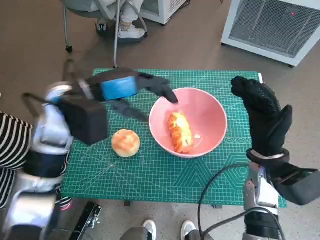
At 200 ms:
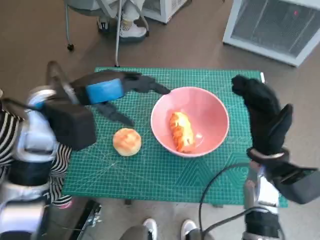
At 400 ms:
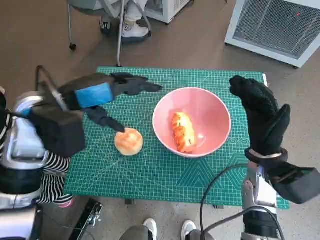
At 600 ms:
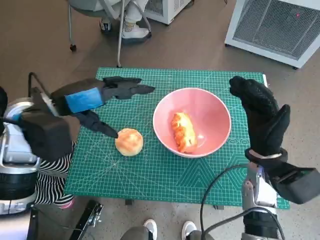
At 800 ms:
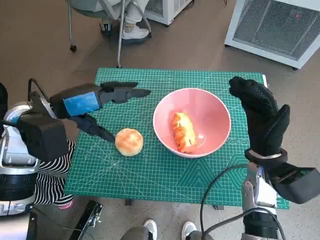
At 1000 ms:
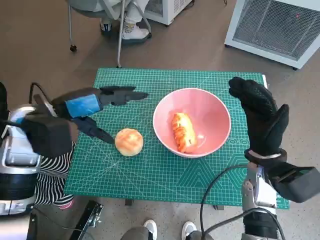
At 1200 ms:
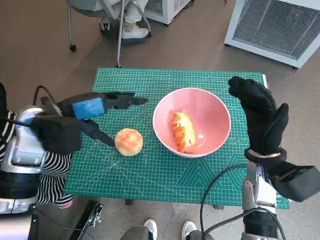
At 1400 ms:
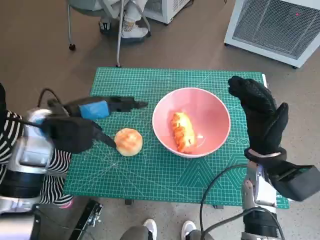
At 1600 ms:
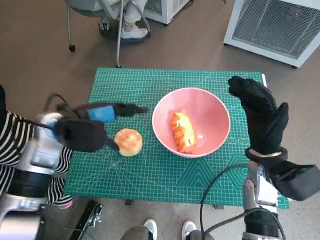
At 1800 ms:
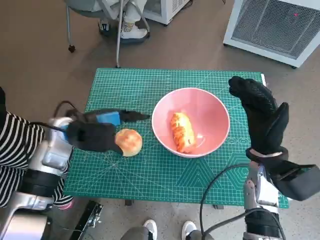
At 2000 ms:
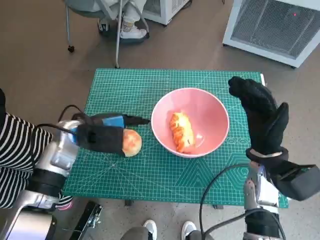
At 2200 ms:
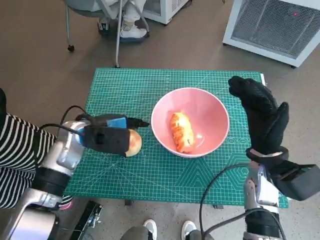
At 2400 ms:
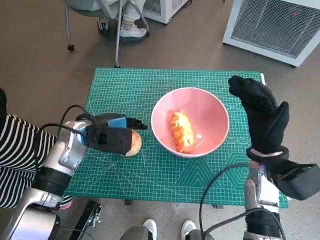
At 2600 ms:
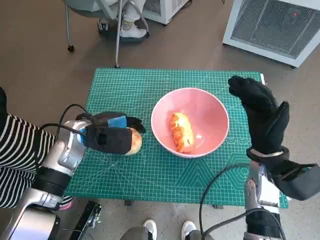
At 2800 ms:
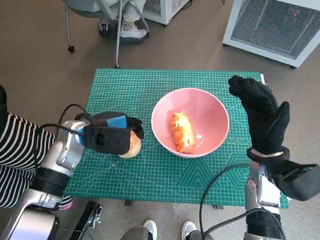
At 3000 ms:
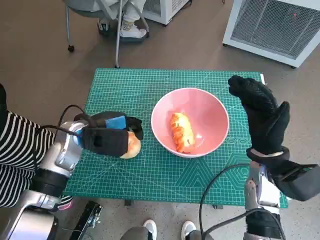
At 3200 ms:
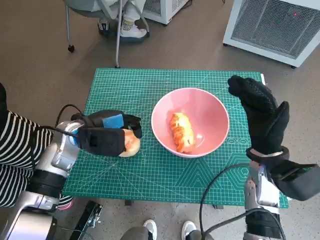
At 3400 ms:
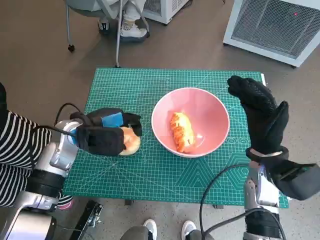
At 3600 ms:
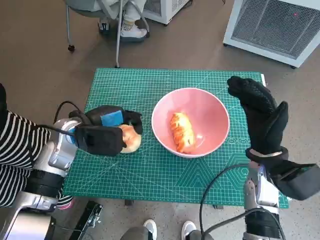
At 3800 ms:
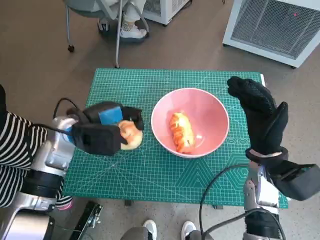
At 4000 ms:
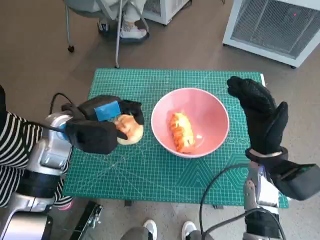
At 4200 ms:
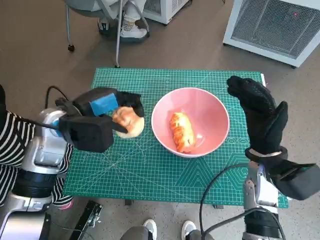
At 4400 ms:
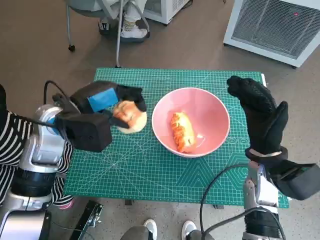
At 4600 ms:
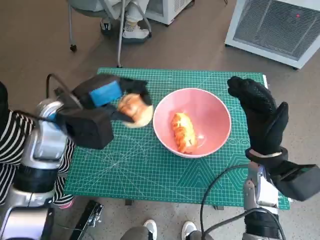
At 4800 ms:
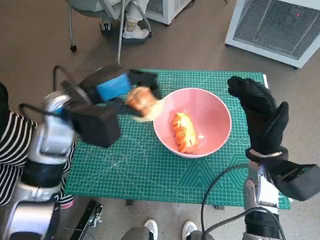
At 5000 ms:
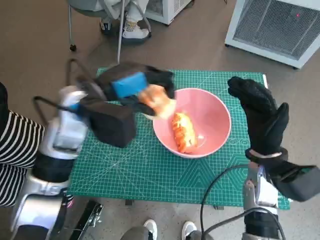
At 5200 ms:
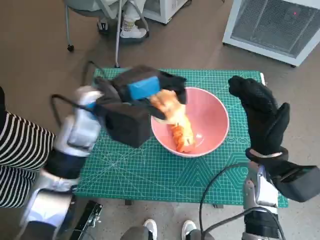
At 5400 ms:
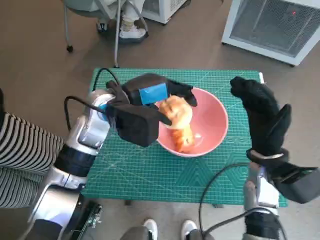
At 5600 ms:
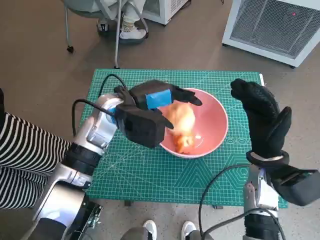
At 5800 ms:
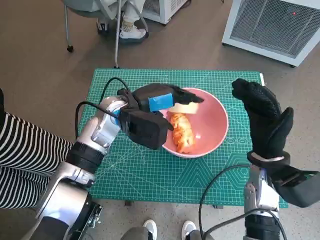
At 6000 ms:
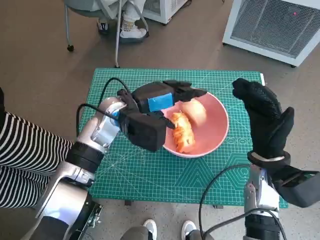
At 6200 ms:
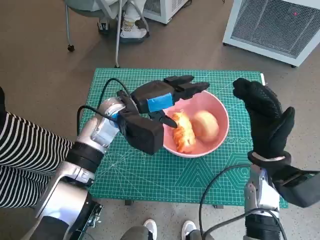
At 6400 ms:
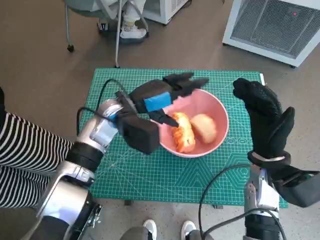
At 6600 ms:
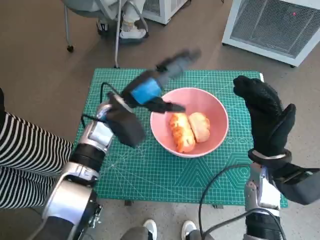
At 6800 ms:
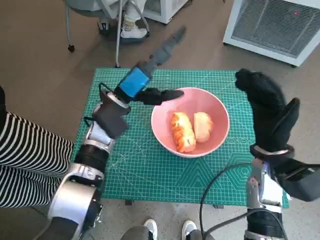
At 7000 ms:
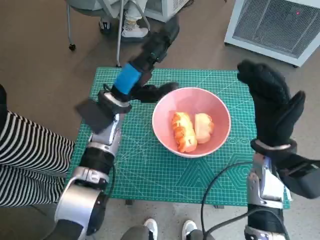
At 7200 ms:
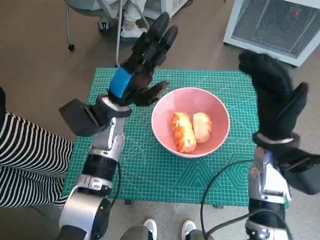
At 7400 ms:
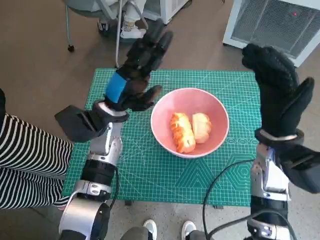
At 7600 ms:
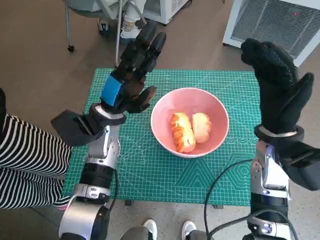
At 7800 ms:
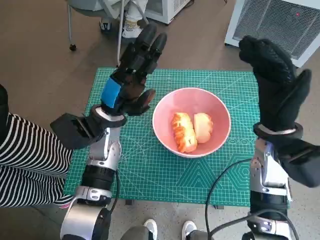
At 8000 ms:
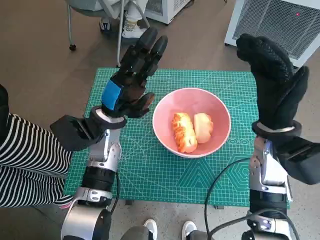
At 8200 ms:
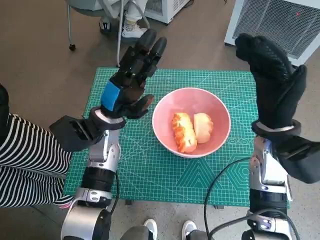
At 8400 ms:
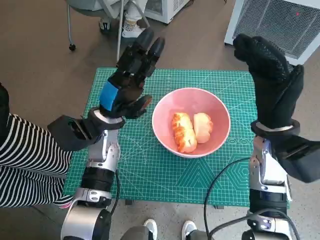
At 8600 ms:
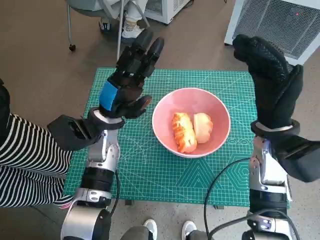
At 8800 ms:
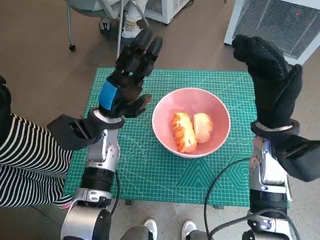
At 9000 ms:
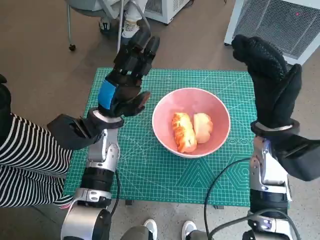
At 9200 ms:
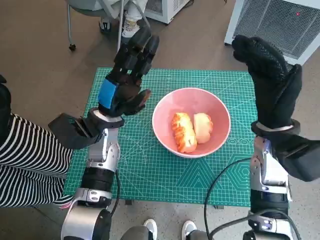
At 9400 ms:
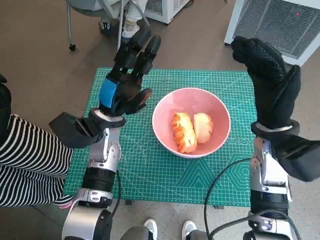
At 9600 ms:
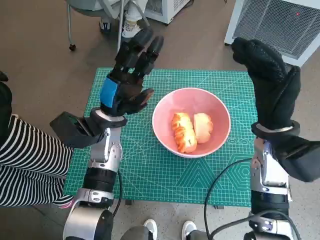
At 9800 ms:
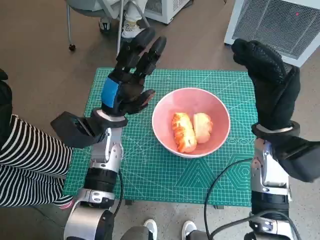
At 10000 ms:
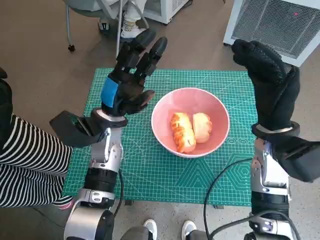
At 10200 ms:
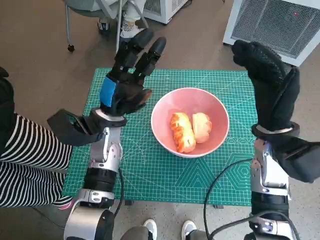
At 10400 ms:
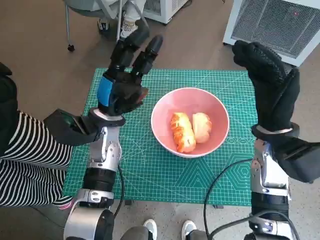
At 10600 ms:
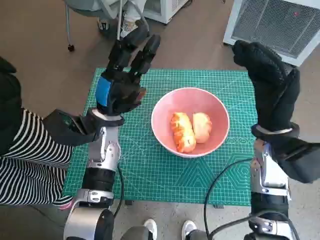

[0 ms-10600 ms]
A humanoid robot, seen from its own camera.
Task of the whole recording: Push the bowl into the center of the table and put the bread into the bowl.
Step, 0 ms to 2600 ms: Grasp the round bread with left hand.
Step, 2800 ms to 6400 ms: Place the round bread in pink bowl with left hand.
0 ms to 1600 ms: The left hand travels downward and to the left by about 10 cm.
1600 ms to 3000 ms: The left hand changes place by some 5 cm.
3000 ms to 4600 ms: The left hand travels upward by approximately 10 cm.
4600 ms to 6000 ms: The left hand shifts about 10 cm to the right.
6000 ms to 7600 ms: The right hand goes some 5 cm upward.
7600 ms to 9000 ms: The two hands keep their place.
9000 ms to 10600 ms: There are only small adjustments of the hands.

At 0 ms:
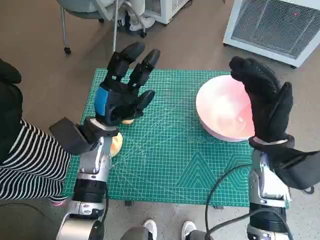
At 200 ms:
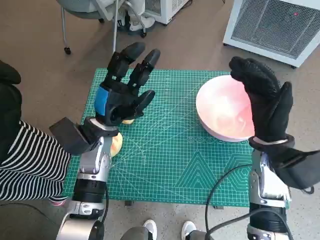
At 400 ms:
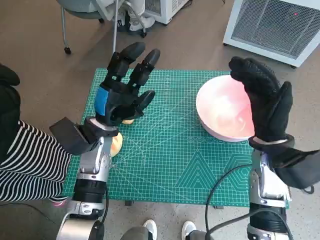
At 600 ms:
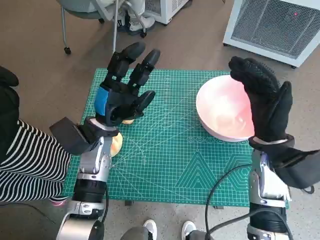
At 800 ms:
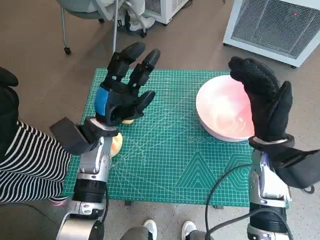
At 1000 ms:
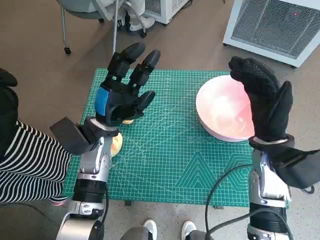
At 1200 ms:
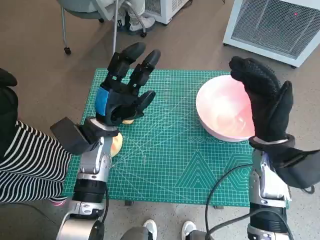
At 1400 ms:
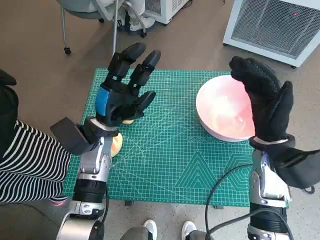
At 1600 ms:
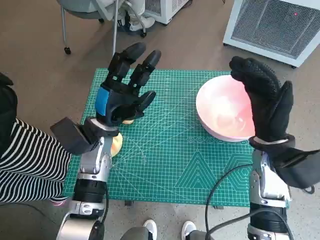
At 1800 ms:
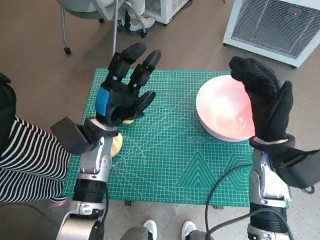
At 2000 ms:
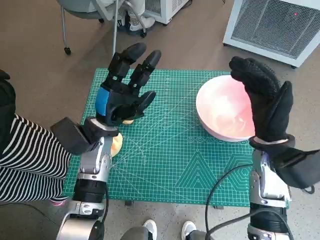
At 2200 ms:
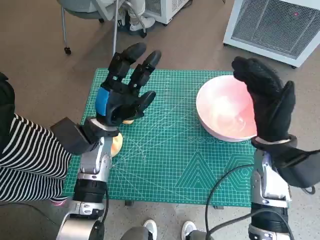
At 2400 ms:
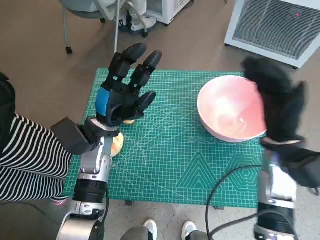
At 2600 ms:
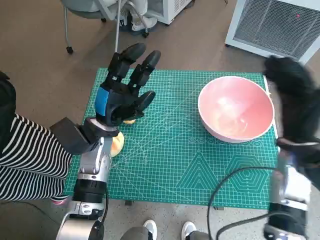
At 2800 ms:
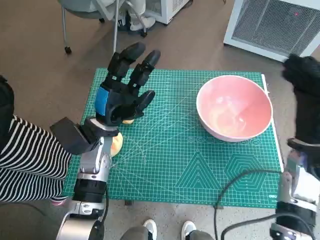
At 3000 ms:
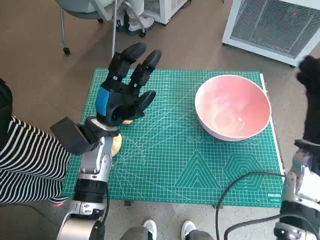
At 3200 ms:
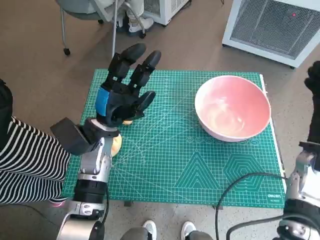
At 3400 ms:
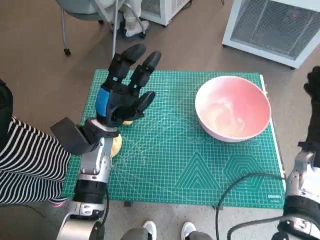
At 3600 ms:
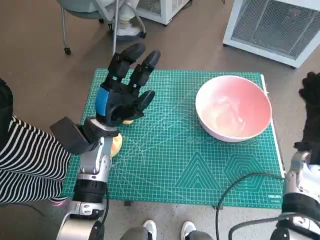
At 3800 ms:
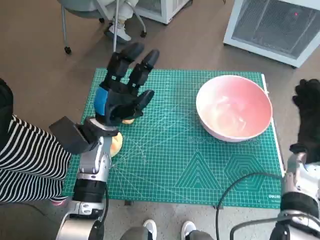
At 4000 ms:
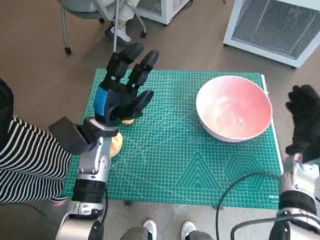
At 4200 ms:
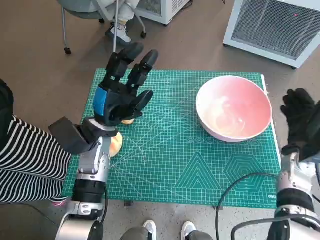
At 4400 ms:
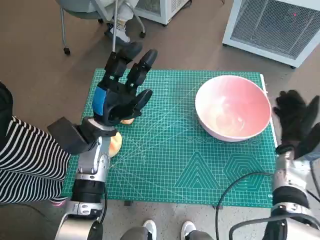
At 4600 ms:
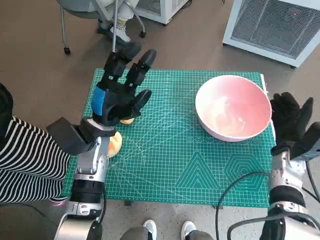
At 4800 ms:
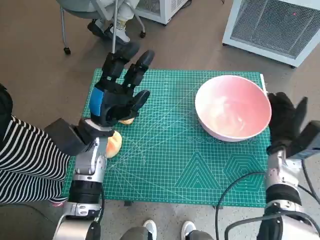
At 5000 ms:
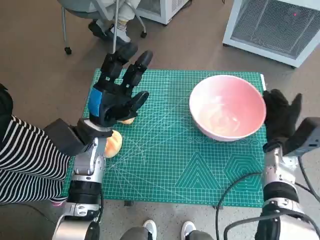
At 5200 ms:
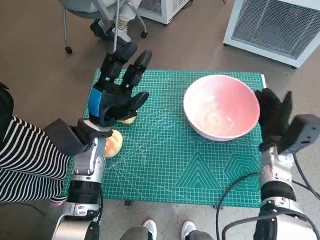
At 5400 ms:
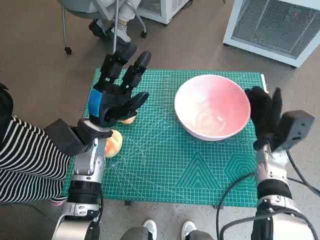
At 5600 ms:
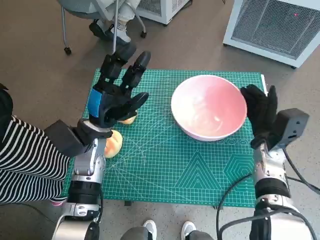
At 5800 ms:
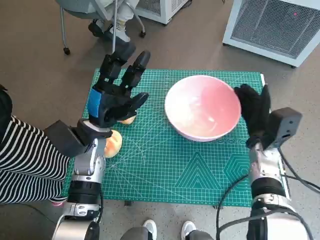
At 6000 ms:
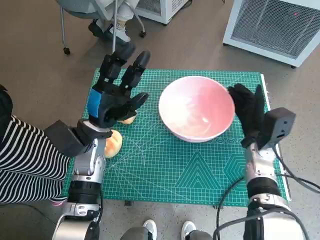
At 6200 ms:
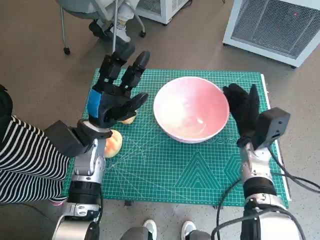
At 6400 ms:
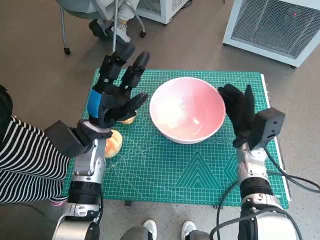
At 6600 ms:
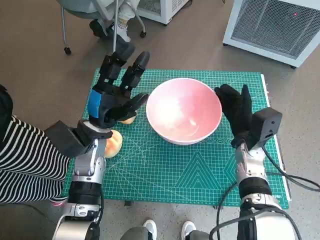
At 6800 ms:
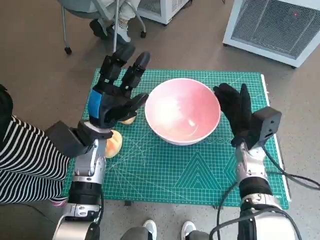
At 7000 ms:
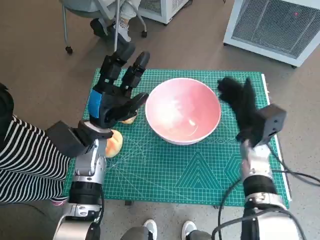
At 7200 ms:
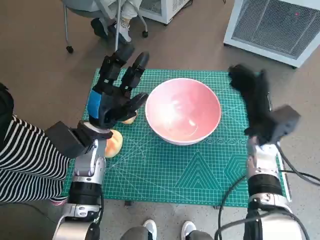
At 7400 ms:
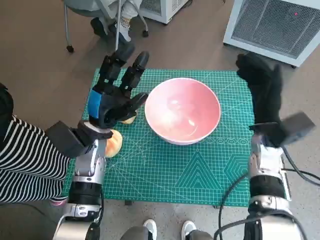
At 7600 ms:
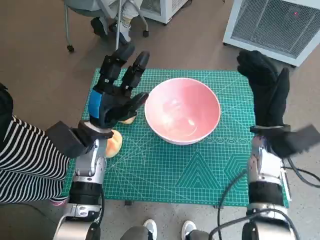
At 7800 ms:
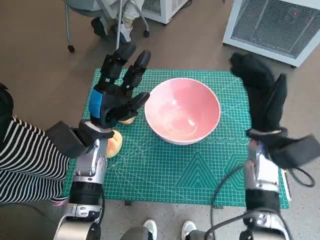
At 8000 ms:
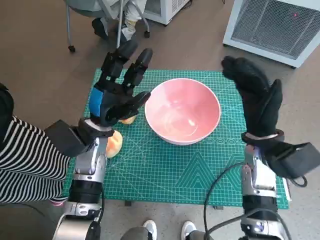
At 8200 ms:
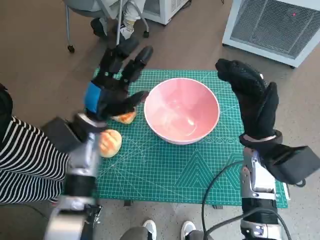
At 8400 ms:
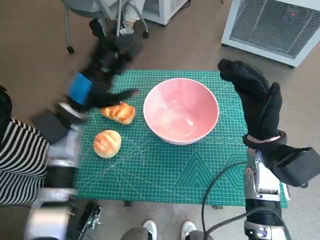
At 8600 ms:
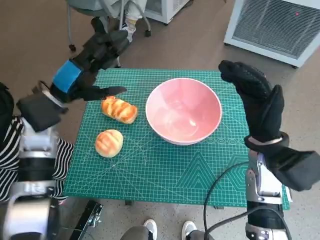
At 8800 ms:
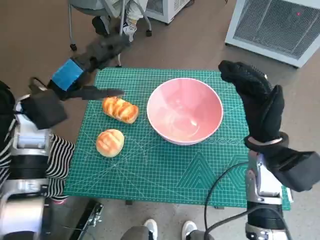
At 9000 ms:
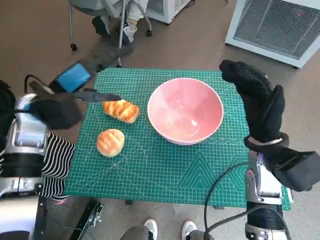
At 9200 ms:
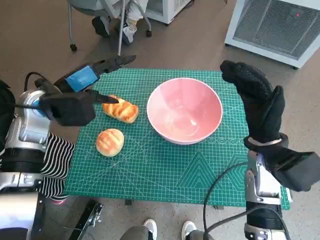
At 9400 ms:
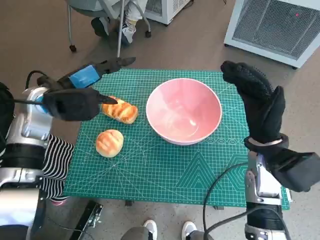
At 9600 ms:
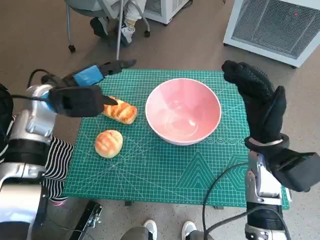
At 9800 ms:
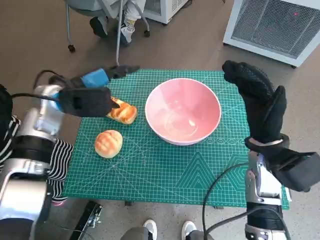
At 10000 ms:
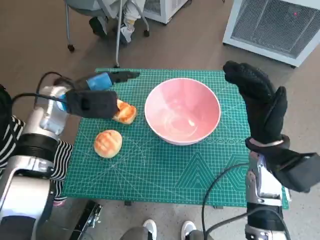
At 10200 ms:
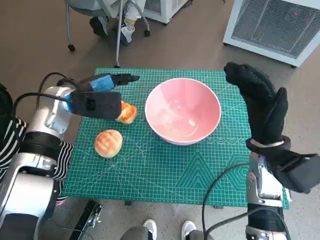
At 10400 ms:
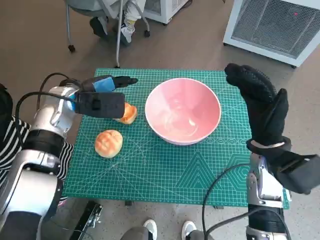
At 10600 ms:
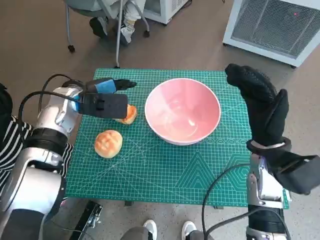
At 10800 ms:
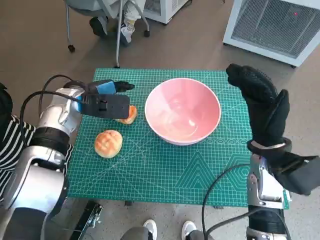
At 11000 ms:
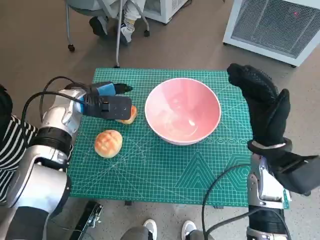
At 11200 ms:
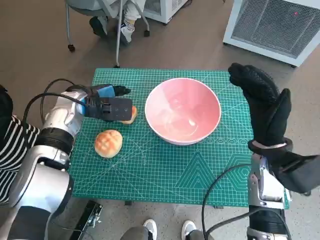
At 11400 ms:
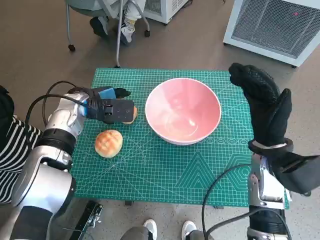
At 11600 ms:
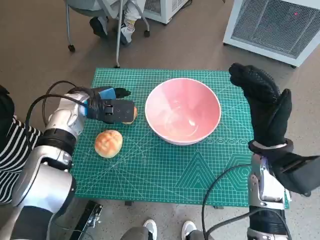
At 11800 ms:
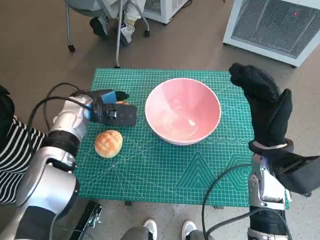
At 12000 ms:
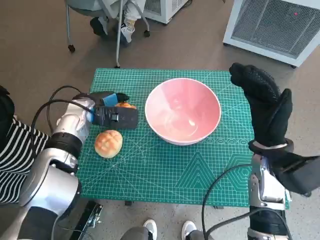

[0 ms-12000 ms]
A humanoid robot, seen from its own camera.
Task of the whole recording: Push the bowl into the center of the table and put the bread into the bowl.
Step, 0 ms to 7000 ms: Move the pink bowl to the center of table with right hand.
1600 ms to 3000 ms: The right hand travels to the right by approximately 10 cm.
3000 ms to 4400 ms: The right hand goes roughly 5 cm downward.
4400 ms to 6000 ms: The right hand moves to the left, some 5 cm.
6000 ms to 7600 ms: The right hand heads upward, covering about 5 cm.
7600 ms to 9000 ms: The left hand is displaced upward and to the left by about 10 cm.
9000 ms to 10400 ms: The left hand shifts by some 5 cm.
10400 ms to 12000 ms: There are only small adjustments of the hands.
